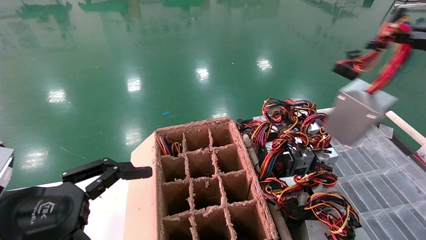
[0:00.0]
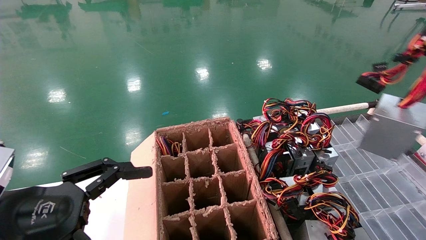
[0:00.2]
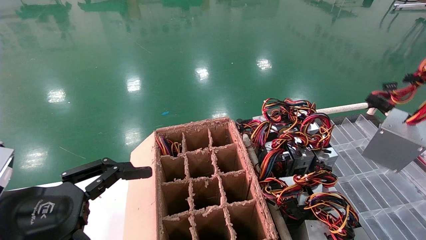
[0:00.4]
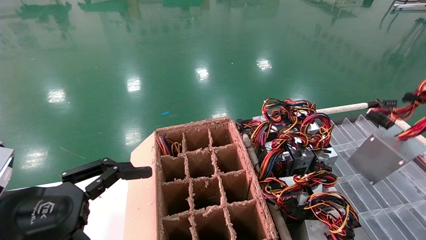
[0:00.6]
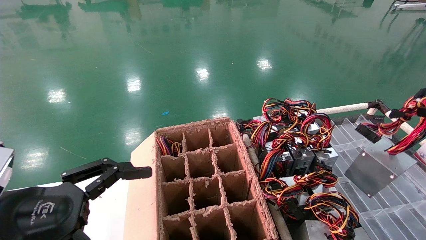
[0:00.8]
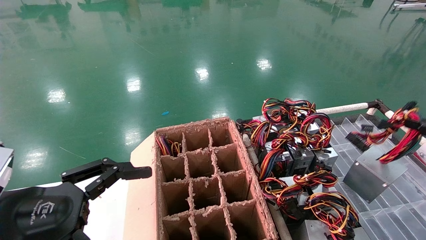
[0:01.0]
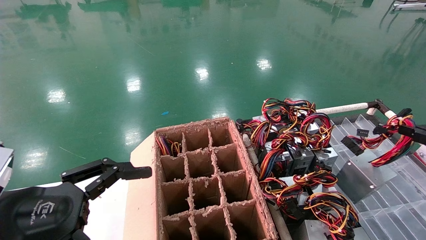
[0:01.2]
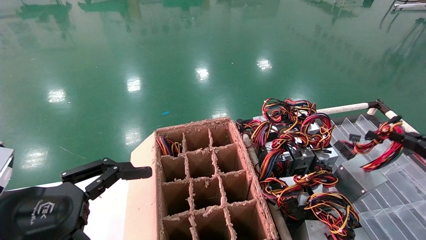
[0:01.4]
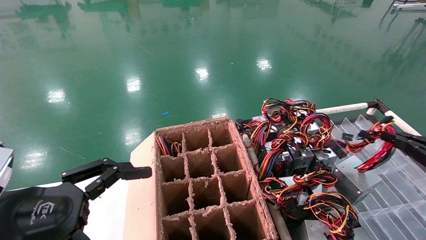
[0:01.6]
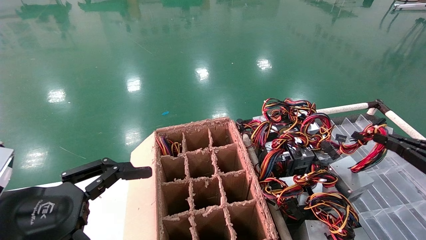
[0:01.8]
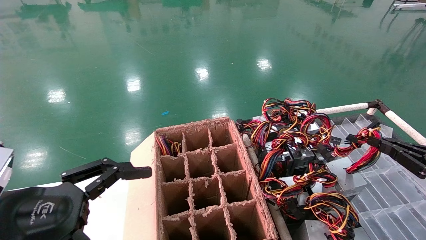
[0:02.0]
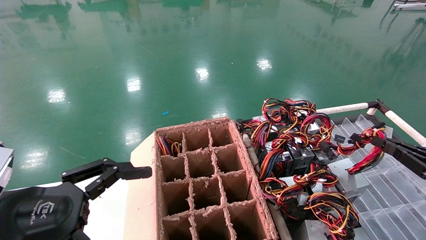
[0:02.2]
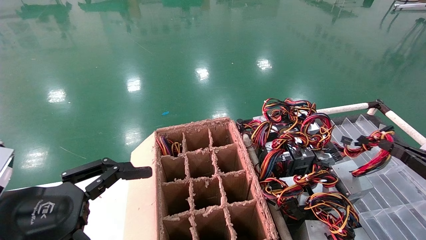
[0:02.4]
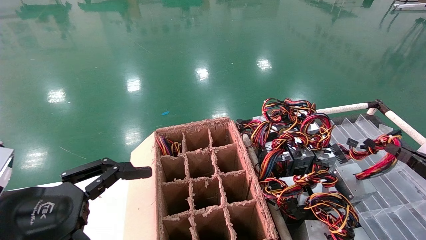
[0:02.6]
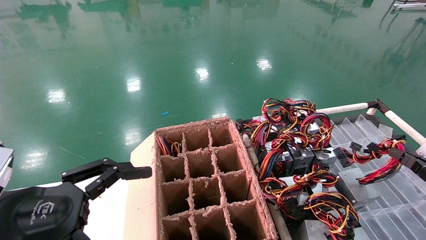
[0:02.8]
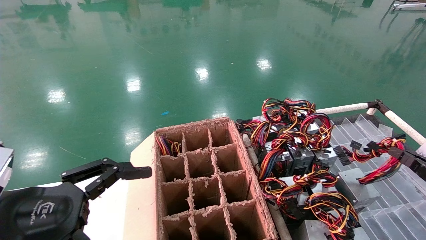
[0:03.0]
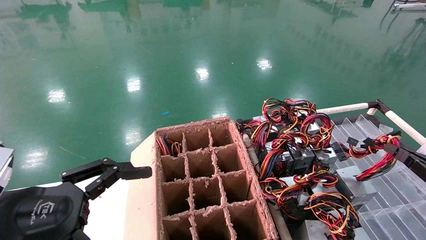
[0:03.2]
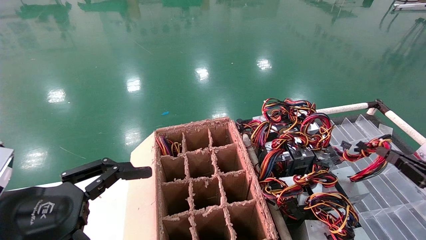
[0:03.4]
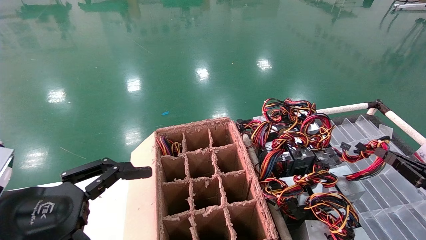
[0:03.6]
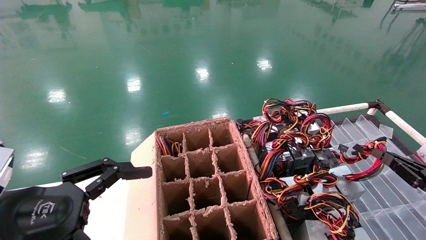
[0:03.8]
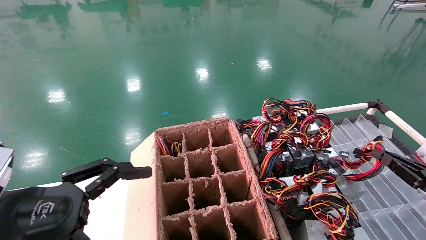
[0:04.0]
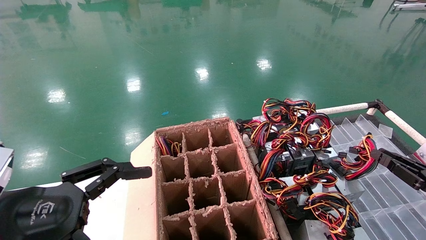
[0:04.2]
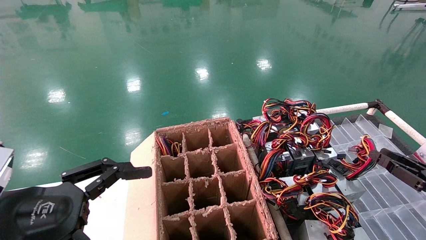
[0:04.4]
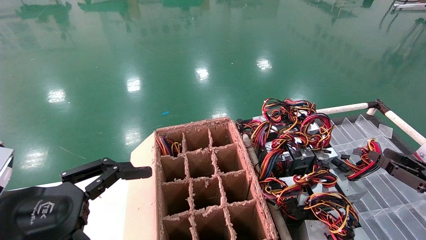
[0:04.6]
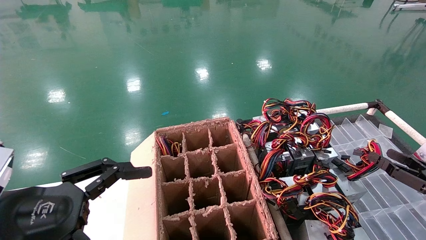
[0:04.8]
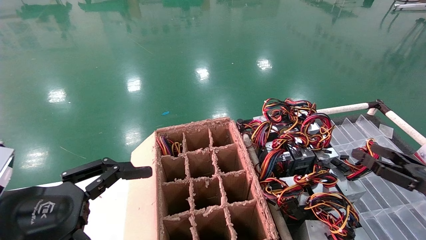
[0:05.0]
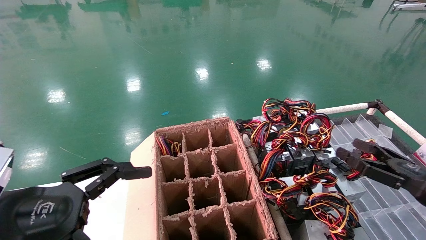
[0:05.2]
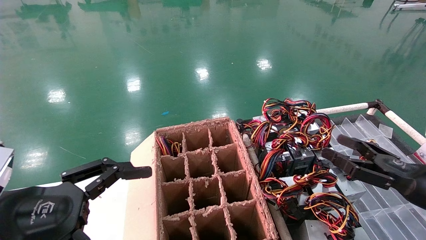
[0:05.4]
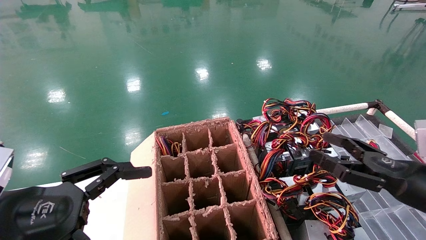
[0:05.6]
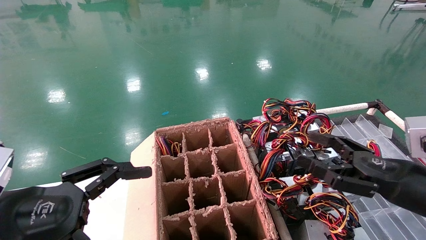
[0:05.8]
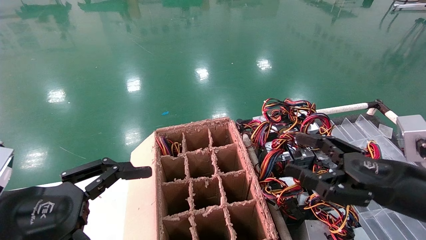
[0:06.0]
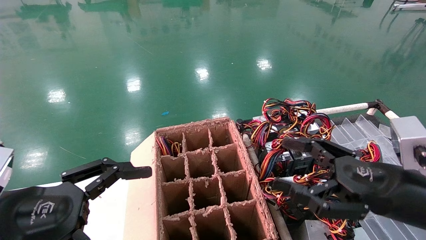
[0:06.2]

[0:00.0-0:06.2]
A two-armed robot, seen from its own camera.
Step, 0:00.0 to 0:04.0: Place the power supply on the operating table.
0:00.0 to 0:01.6: The right gripper goes about 20 cm downward.
0:01.6 to 0:03.2: The right gripper shifts about 5 cm downward.
0:03.2 to 0:04.6: The right gripper opens up.
0:04.6 to 0:06.2: The right gripper shifts roughly 20 cm to the left and upward, and opens up.

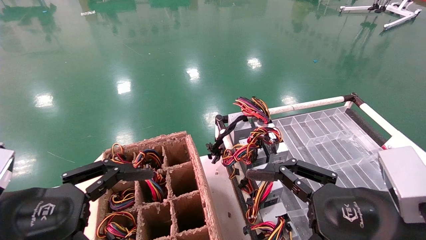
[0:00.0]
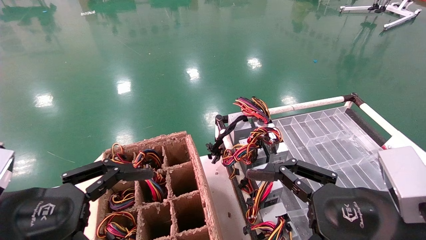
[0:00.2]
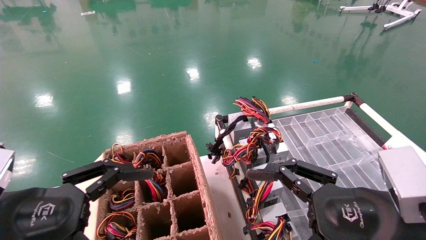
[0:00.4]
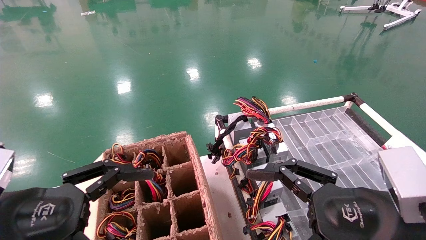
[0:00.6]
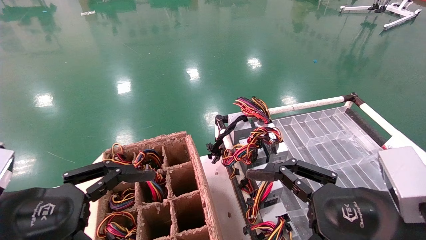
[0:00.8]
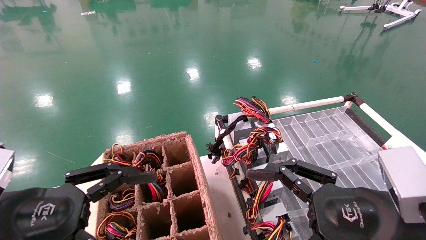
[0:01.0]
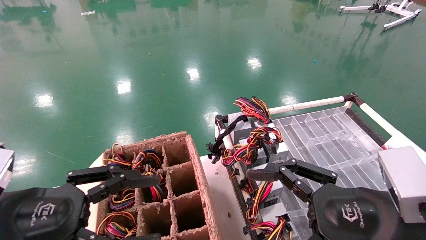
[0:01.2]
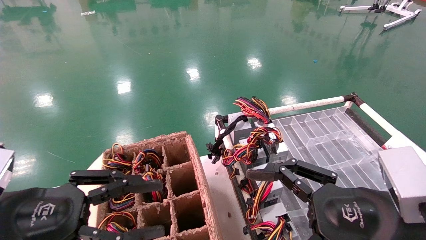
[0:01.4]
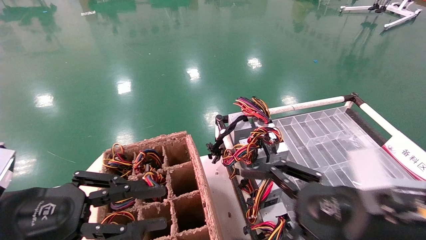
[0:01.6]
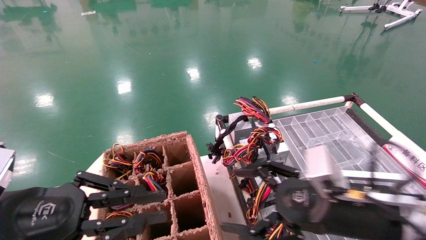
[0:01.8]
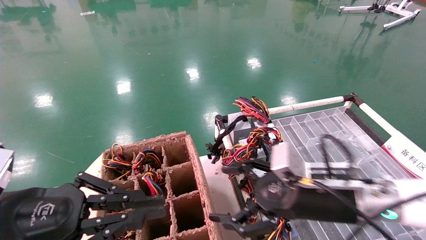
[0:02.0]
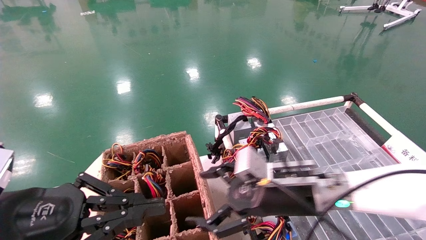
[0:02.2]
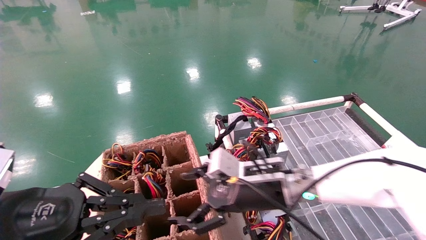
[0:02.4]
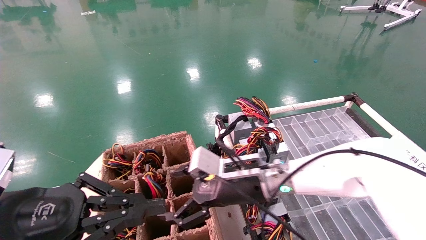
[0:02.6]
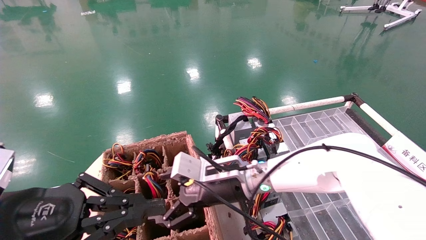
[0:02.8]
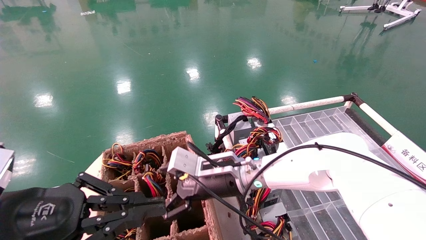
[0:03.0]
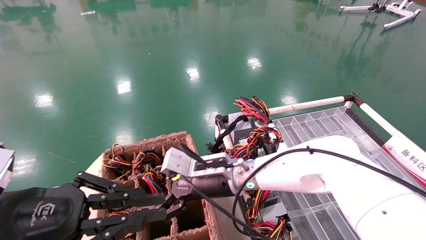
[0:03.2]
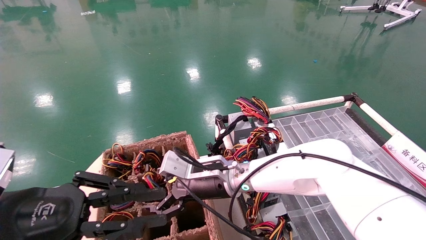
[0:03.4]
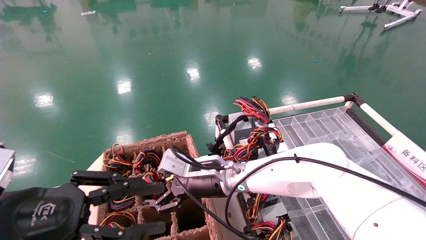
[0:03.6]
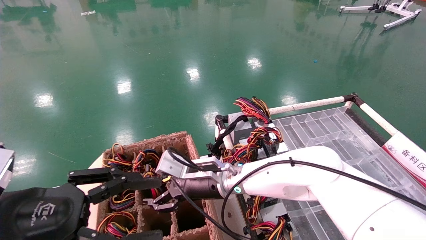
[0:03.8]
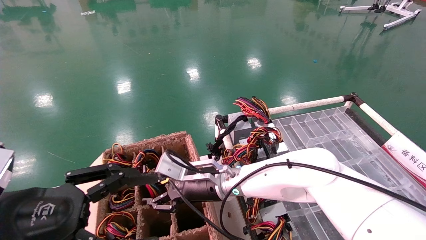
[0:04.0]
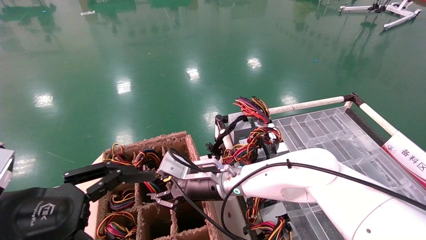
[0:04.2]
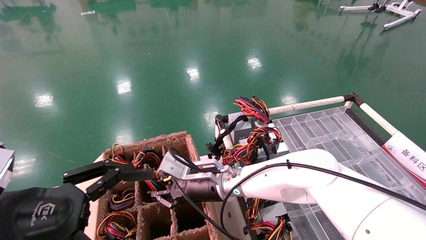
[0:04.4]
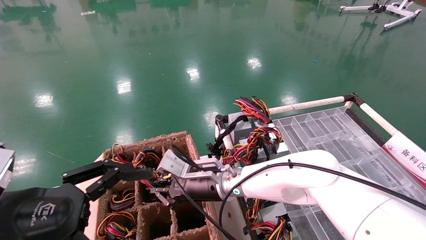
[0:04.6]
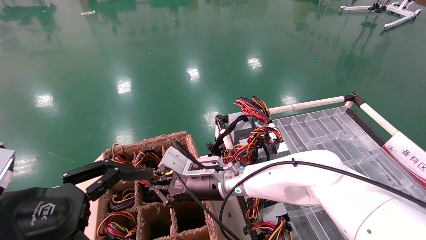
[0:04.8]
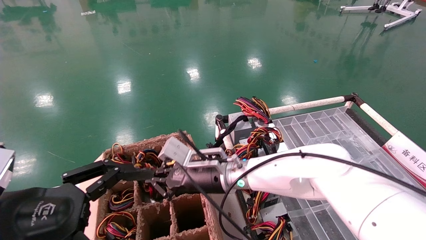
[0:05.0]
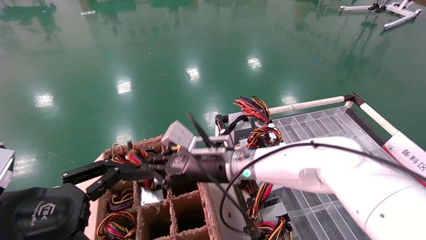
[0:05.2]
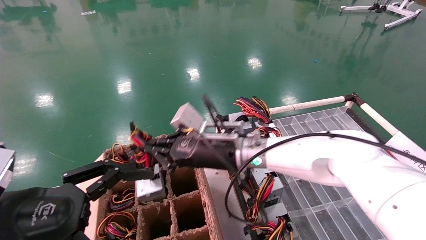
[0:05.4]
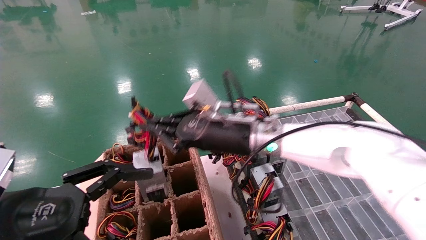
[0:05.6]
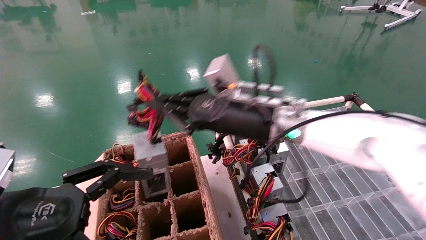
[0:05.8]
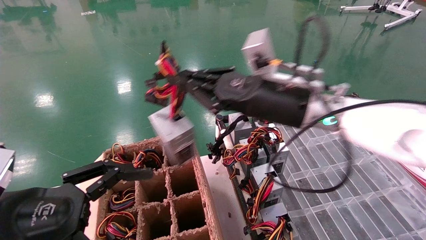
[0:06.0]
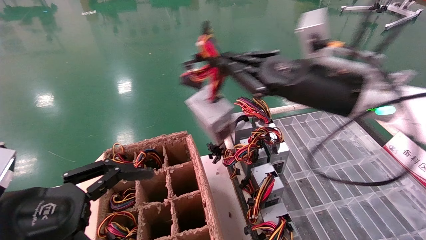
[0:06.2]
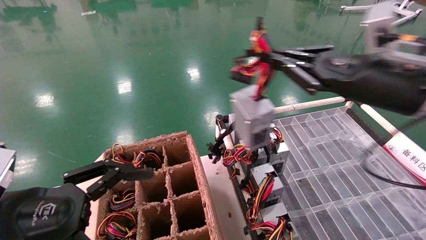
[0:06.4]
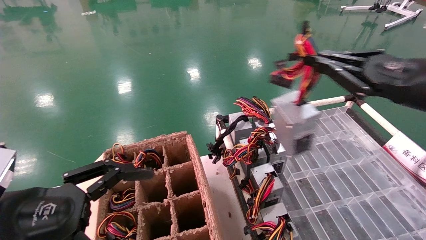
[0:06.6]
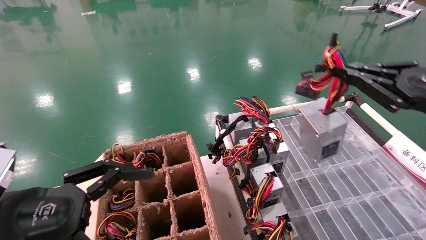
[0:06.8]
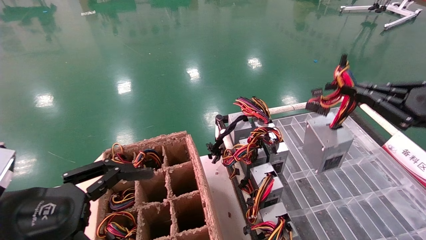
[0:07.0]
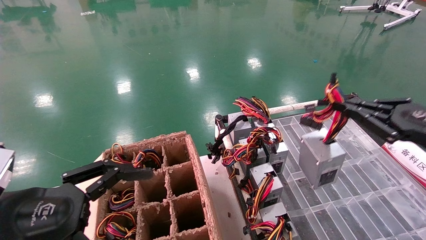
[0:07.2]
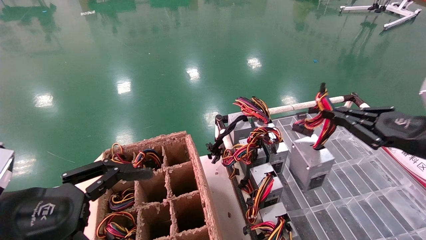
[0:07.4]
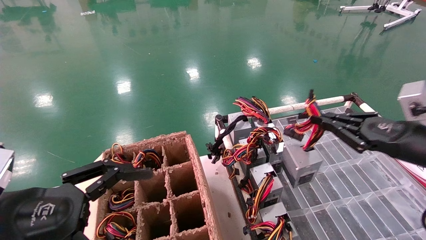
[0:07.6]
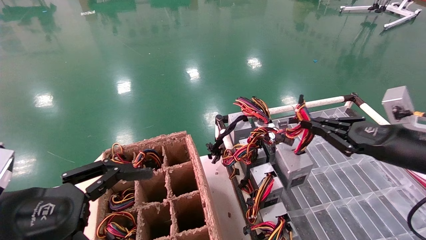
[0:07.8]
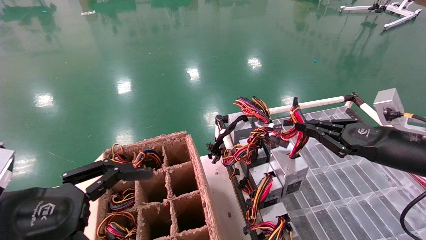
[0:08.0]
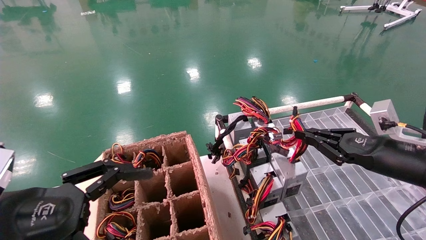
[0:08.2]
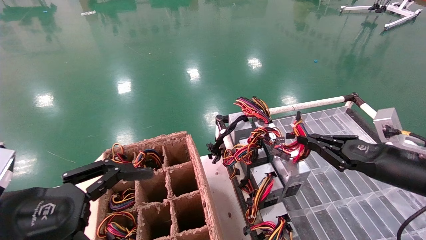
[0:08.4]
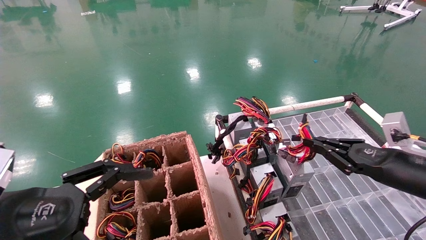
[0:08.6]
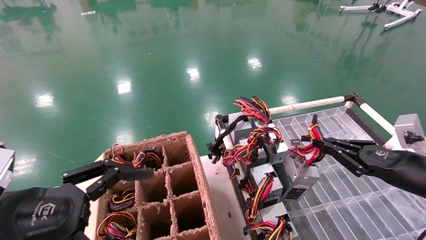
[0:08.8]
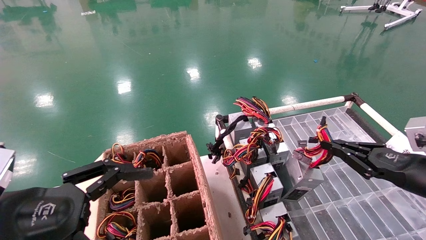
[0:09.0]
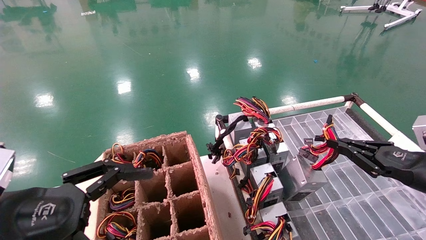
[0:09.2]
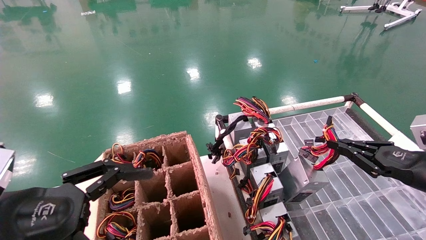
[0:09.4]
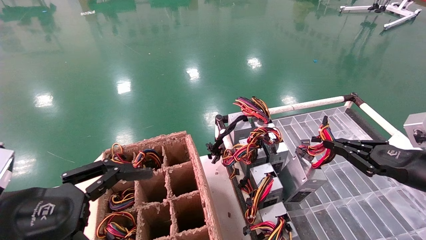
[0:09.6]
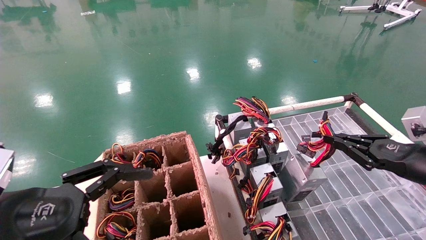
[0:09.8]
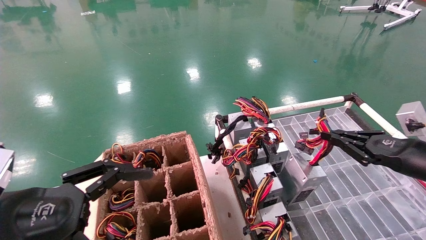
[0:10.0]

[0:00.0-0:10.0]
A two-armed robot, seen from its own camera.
Step, 0:02.4 to 0:04.6: Grab and lift the power supply from the large box.
0:00.0 to 0:01.4: The left gripper closes.
0:01.4 to 0:02.8: The right gripper shifts some 25 cm forward and to the left. Meanwhile the left gripper closes its fingers.
0:02.8 to 0:04.2: The right gripper shifts by roughly 5 cm, and closes up. Meanwhile the left gripper opens its fingers.
0:04.2 to 0:05.8: The right gripper moves upward and to the right, some 15 cm, and closes.
0:05.8 to 0:07.2: The right gripper is displaced to the right by about 30 cm.
0:07.2 to 0:08.6: The right gripper travels downward by about 10 cm.
0:08.6 to 0:10.0: There are only small adjustments of the grippers.
